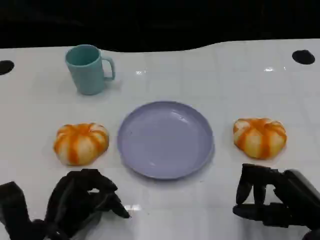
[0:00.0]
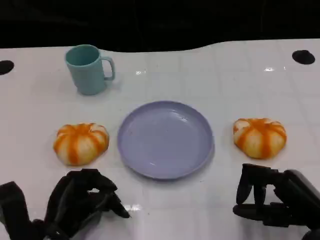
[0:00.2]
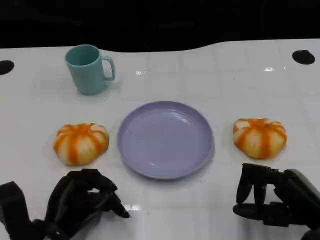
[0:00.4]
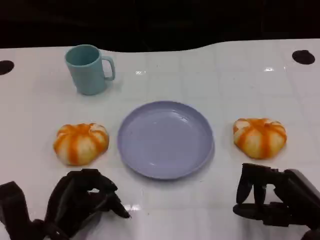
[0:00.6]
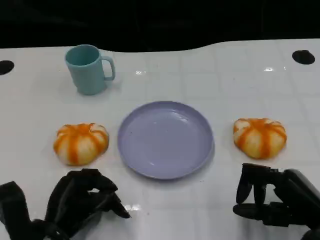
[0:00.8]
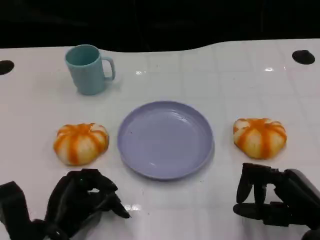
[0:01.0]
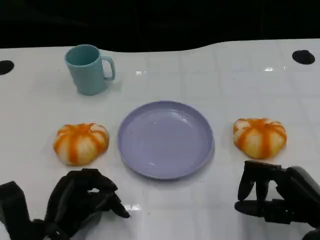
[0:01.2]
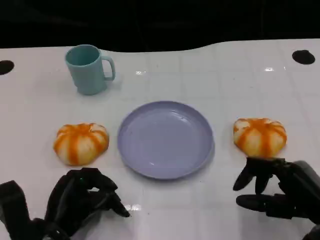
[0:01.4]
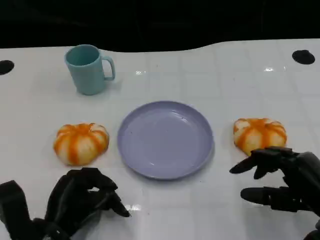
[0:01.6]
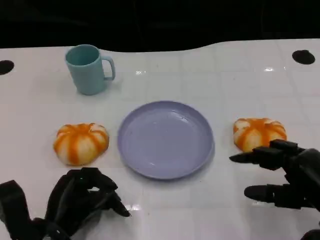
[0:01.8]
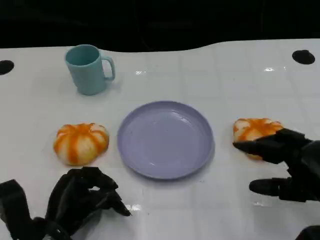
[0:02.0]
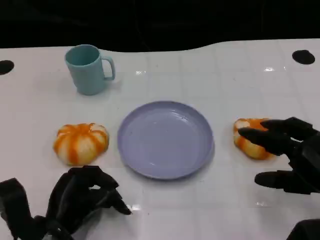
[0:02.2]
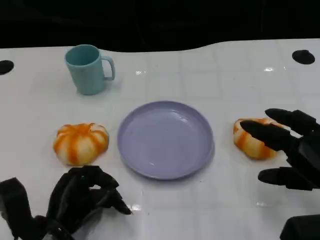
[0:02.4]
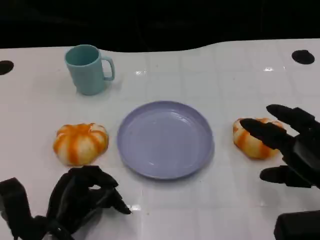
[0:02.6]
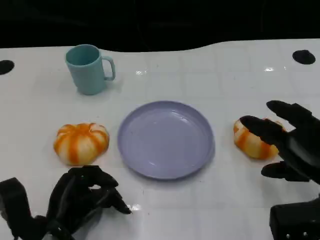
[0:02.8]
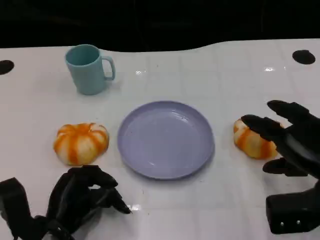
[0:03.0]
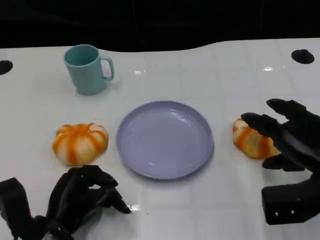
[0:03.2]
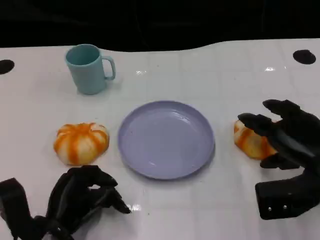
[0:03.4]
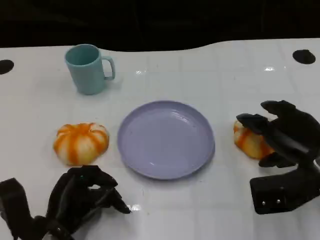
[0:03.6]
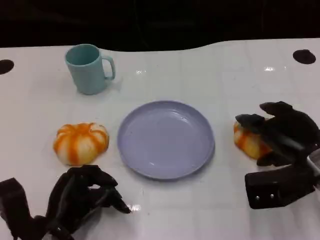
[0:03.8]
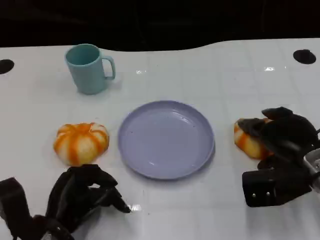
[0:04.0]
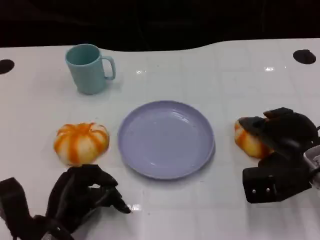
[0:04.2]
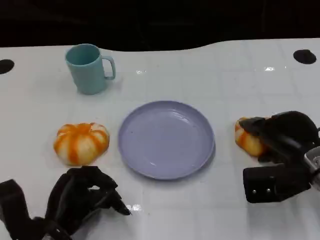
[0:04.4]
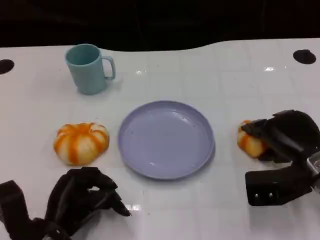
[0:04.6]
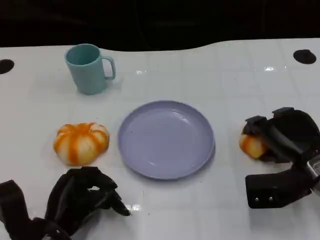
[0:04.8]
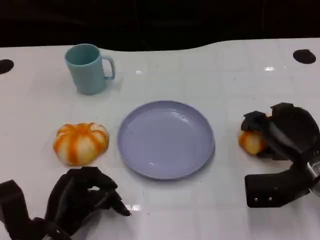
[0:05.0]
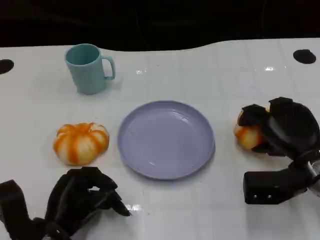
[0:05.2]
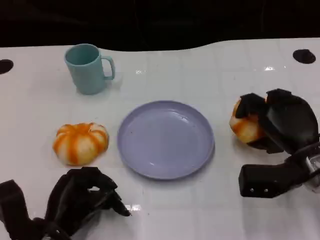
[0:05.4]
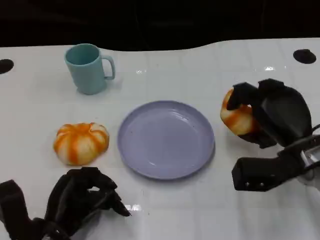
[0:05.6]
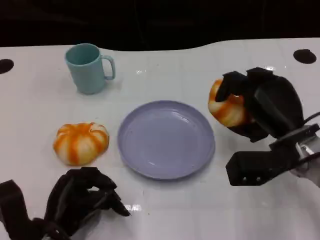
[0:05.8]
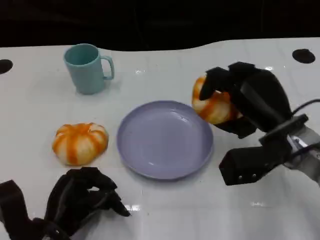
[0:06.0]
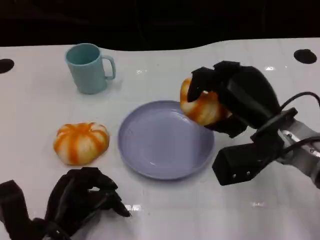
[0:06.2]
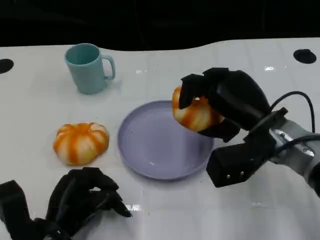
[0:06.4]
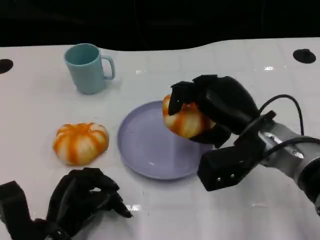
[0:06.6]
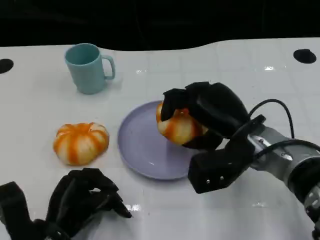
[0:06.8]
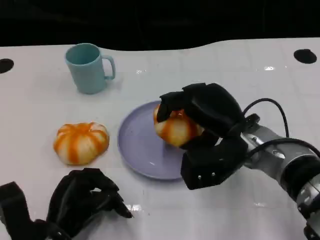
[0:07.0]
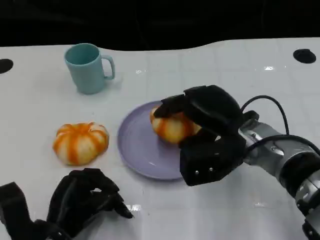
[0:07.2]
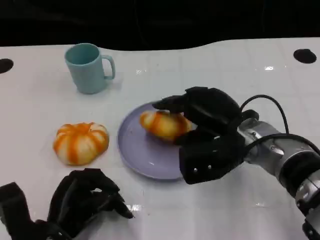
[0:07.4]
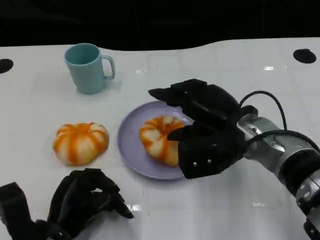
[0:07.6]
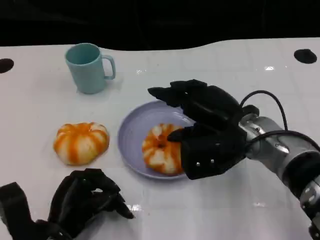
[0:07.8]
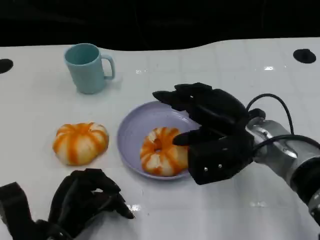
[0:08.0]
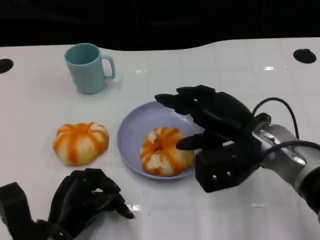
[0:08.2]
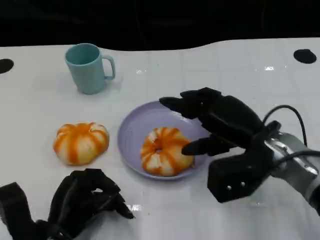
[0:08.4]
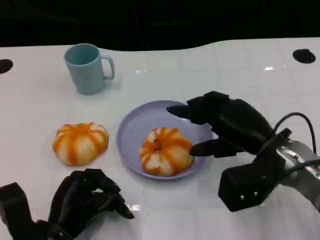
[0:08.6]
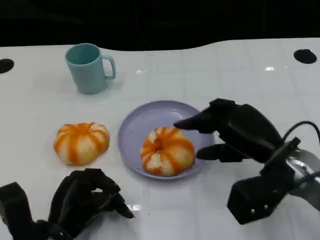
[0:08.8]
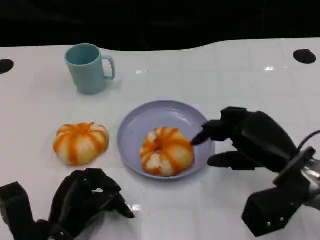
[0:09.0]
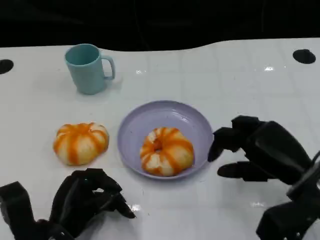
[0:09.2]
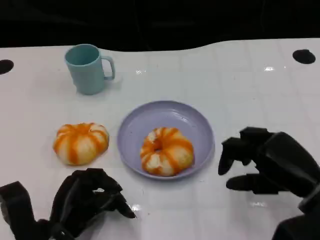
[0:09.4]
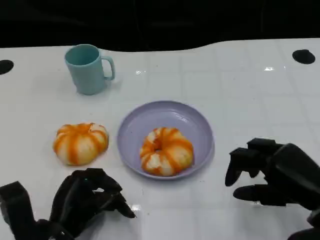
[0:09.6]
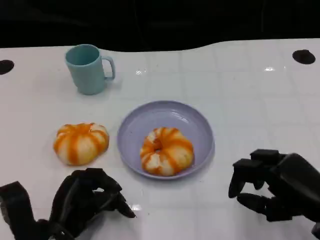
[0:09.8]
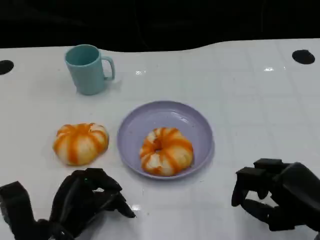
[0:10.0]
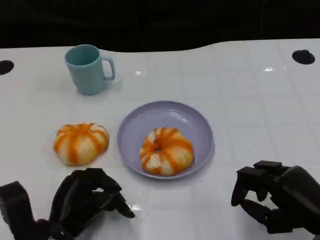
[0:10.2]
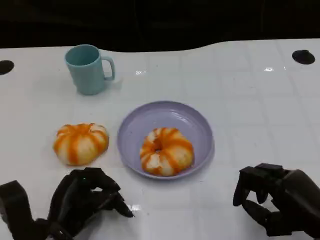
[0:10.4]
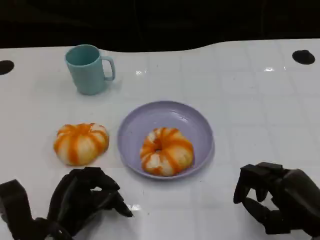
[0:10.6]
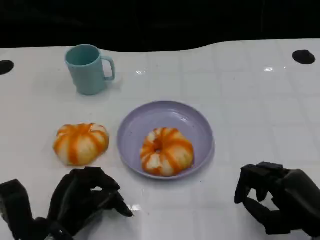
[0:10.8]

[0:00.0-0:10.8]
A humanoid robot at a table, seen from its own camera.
Task of the whole recording: Grasp the bread from the table and place it into the plate.
0:00.0 to 0:01.6: The hands make only small movements.
0:01.6 to 0:03.0: The right hand changes place by roughly 5 cm.
0:03.0 to 0:04.6: The right hand moves about 5 cm.
0:04.6 to 0:06.2: The right hand goes roughly 10 cm to the left and upward.
0:07.8 to 0:09.2: The right hand shifts roughly 10 cm to the right and backward.
0:09.2 to 0:10.8: The right hand heads backward, covering some 5 cm.

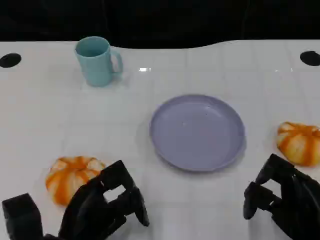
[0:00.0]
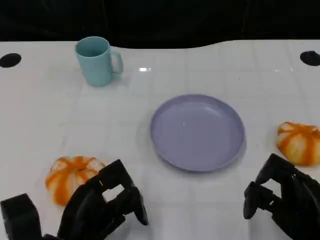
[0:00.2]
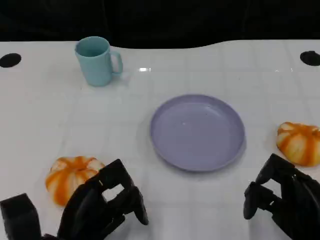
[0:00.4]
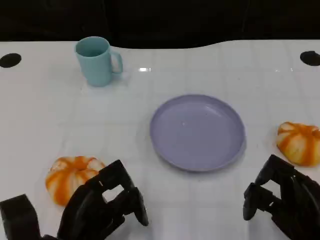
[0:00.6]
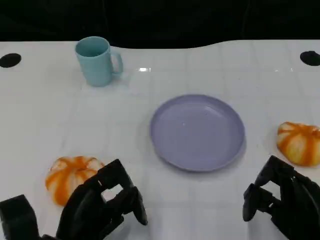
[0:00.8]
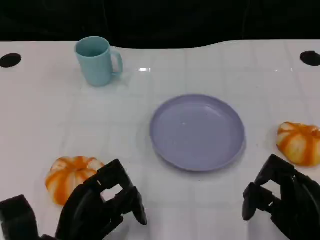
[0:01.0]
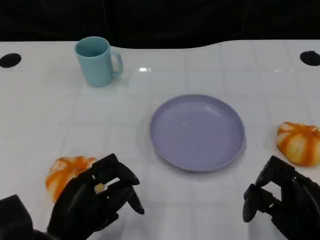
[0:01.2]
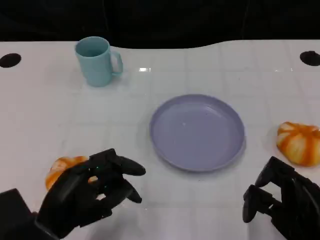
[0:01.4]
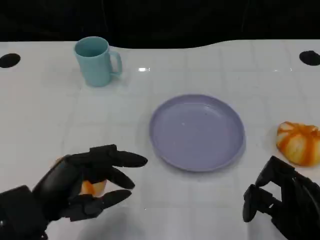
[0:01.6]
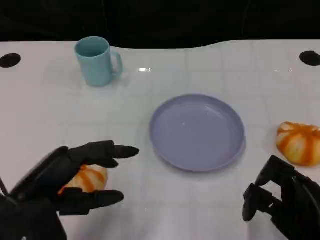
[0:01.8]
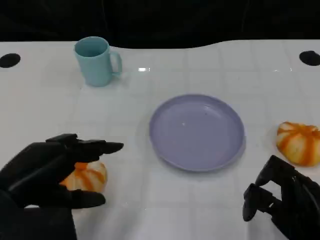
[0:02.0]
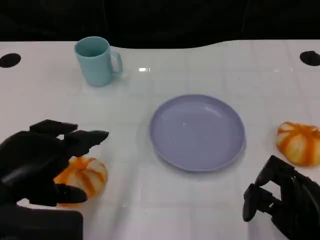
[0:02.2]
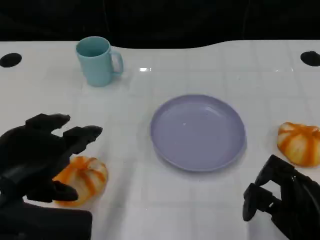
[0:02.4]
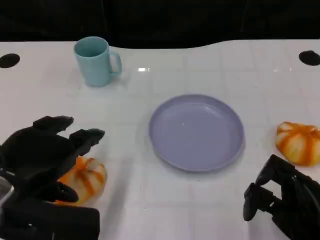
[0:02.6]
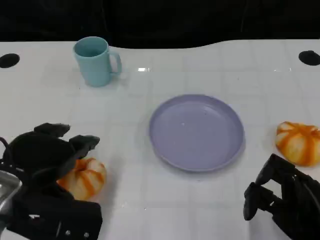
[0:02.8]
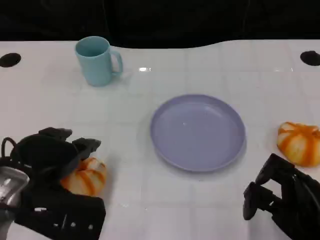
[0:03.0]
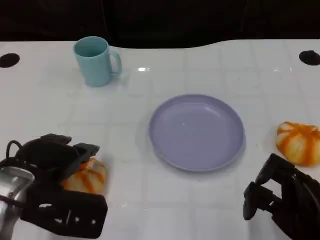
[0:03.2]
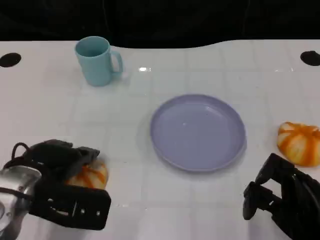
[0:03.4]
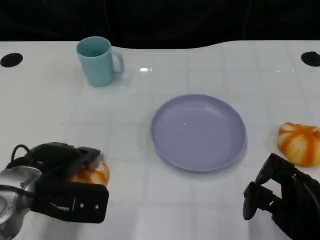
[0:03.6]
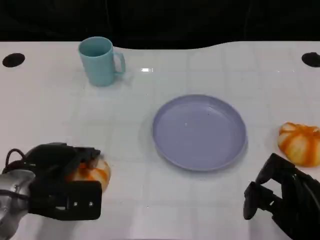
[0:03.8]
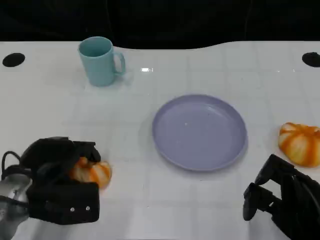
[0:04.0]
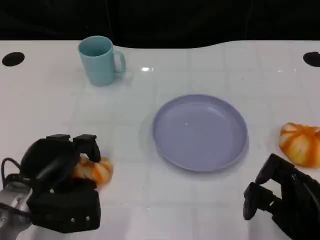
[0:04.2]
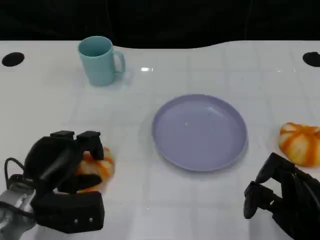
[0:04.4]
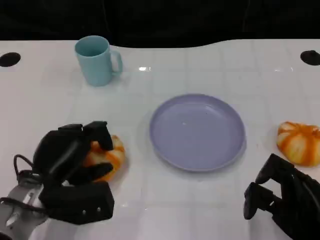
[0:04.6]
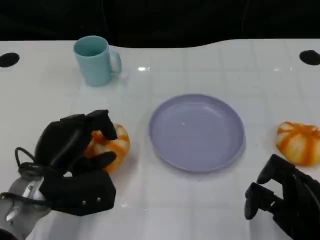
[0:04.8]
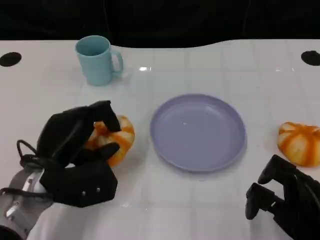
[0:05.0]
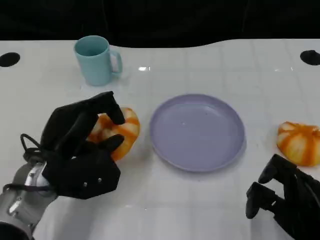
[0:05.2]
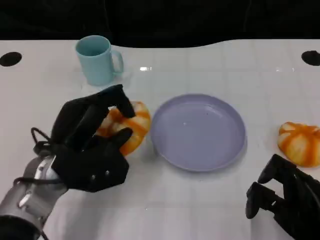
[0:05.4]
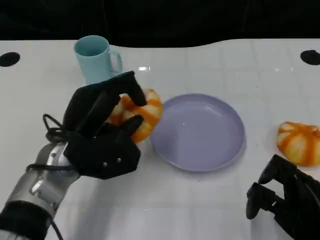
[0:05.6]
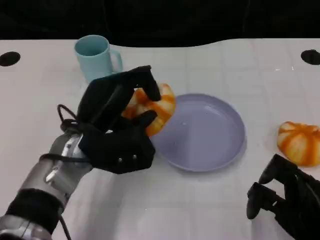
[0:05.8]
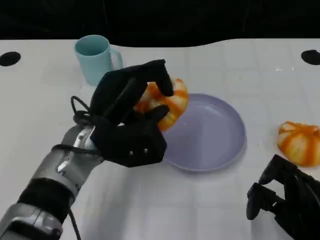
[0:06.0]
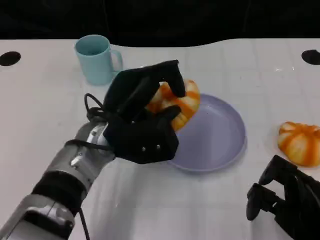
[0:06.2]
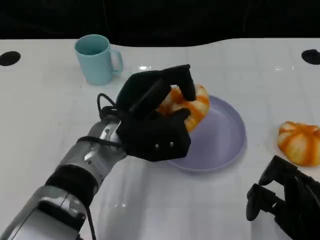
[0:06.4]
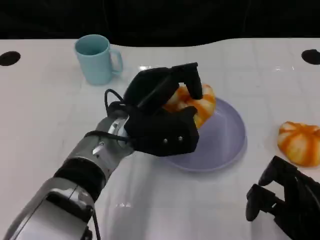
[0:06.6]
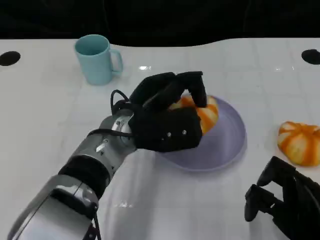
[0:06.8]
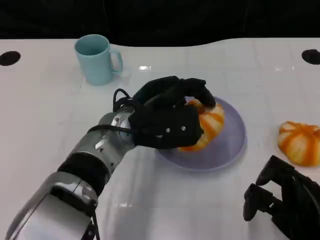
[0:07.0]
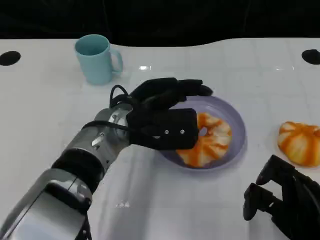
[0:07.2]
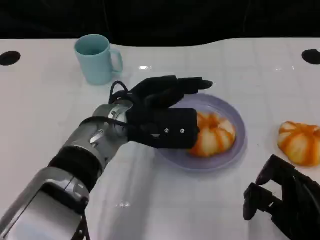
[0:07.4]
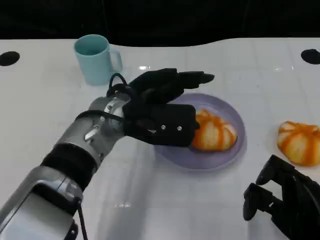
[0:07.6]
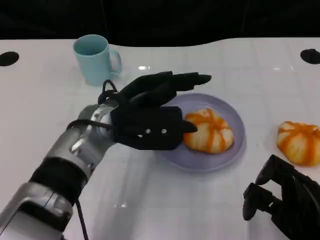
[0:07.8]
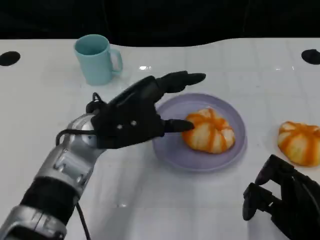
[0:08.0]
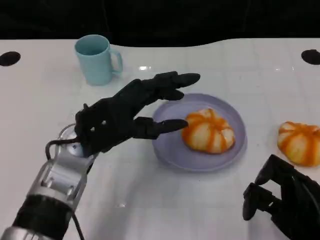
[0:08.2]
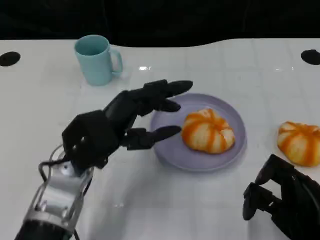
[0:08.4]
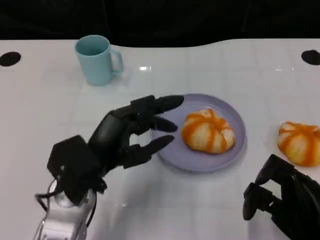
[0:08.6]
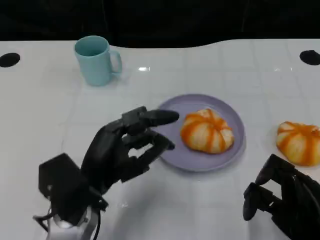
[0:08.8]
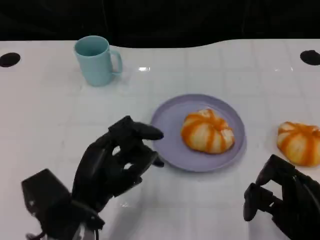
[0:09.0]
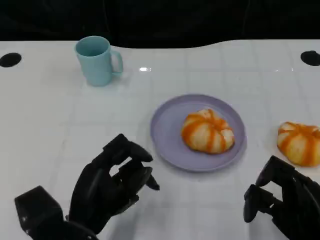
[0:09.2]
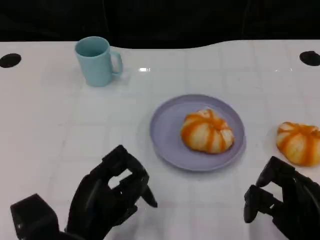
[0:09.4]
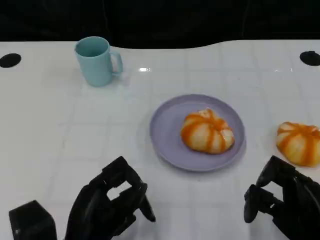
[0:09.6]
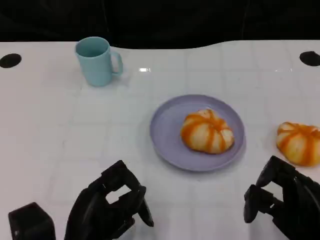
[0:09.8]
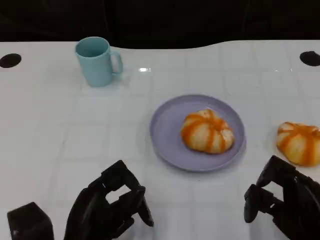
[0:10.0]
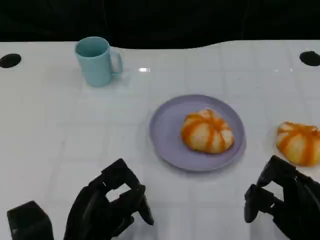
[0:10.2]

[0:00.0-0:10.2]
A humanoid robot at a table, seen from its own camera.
Task of the whole recording: Grasp the bread from the table and place it into the plate.
0:01.4 to 0:03.0: The left hand shifts about 5 cm upward.
0:03.0 to 0:04.4: The left hand goes about 10 cm downward.
0:04.4 to 0:05.8: The left hand moves to the right and upward, approximately 10 cm.
0:05.8 to 0:07.2: The left hand heads to the right, covering some 5 cm.
0:07.2 to 0:08.8: The left hand moves backward and to the left, about 10 cm.
0:08.8 to 0:10.2: The left hand travels backward by about 5 cm.

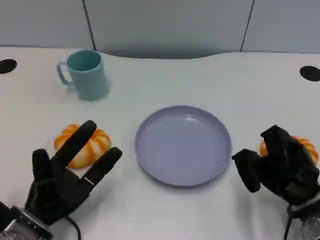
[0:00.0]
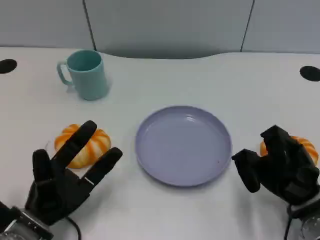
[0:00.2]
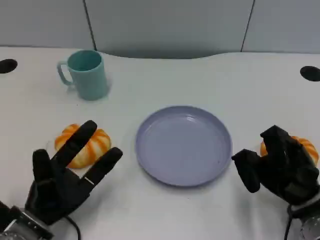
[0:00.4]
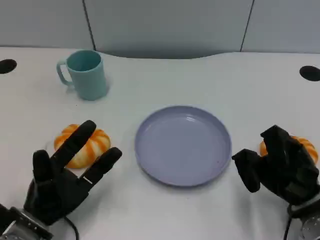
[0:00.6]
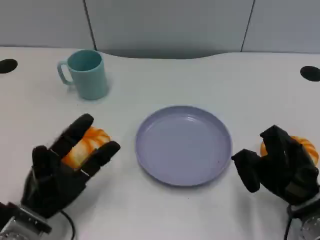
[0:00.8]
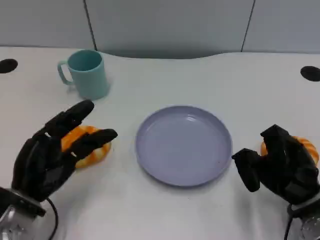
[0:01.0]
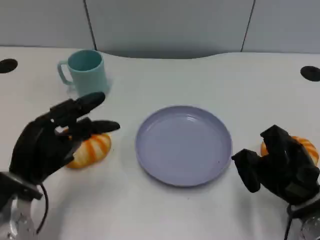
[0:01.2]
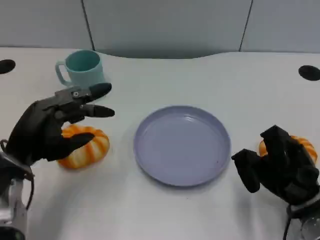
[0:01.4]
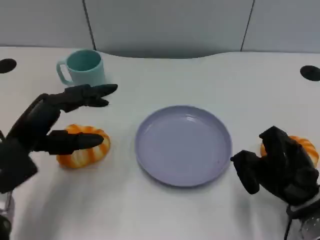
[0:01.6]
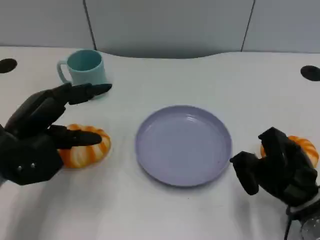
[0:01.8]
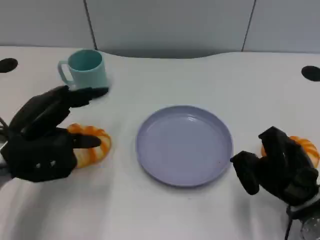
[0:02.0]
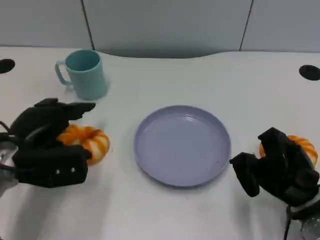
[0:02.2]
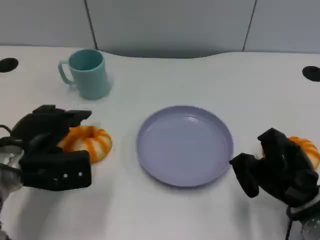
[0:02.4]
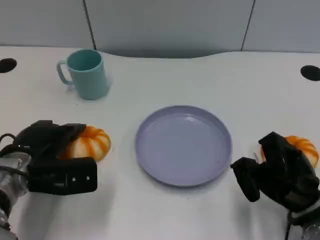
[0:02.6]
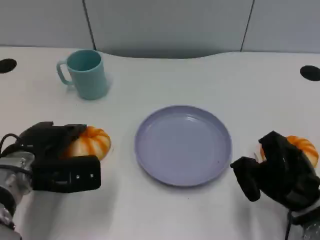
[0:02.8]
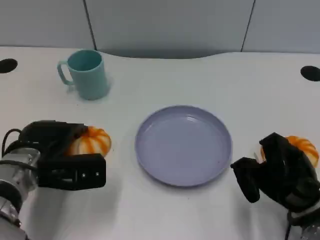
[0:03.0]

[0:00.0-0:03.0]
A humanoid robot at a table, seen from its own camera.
Task of the whole recording: Grasp the bread from the table and place it into the plate.
0:00.0 to 0:01.6: The left hand shifts some 10 cm upward and forward.
0:01.6 to 0:03.0: The left hand changes place by approximately 5 cm.
